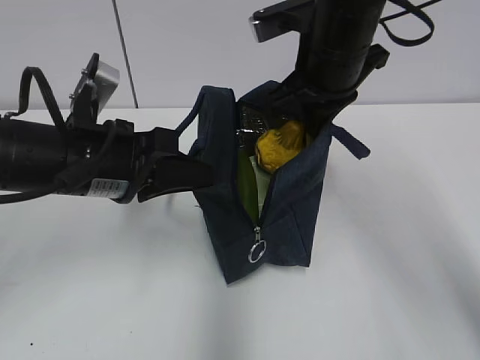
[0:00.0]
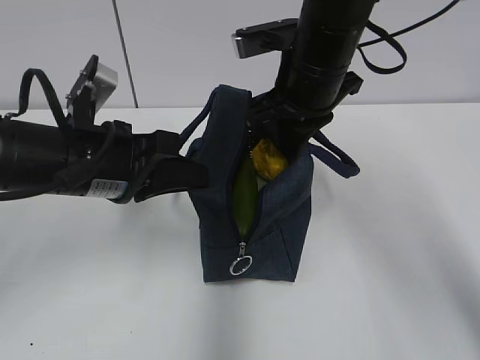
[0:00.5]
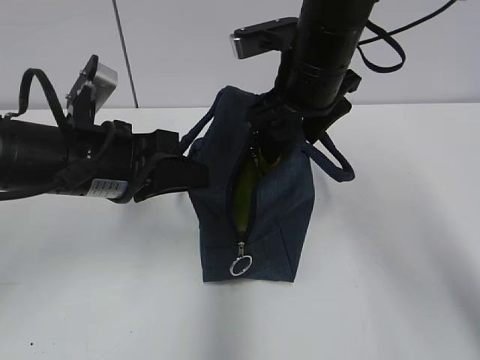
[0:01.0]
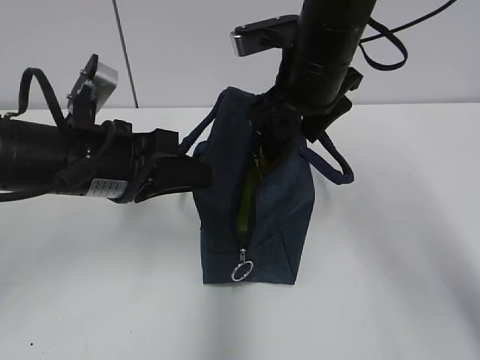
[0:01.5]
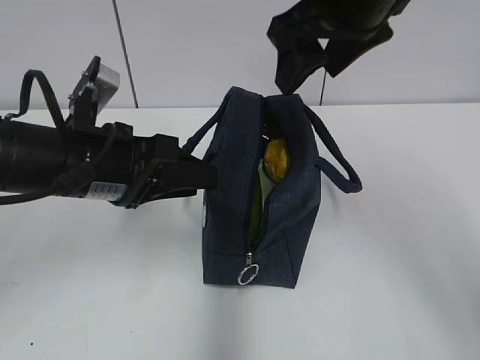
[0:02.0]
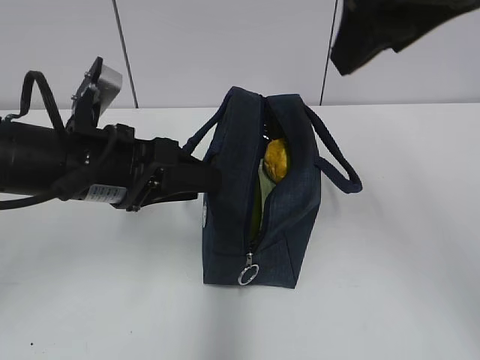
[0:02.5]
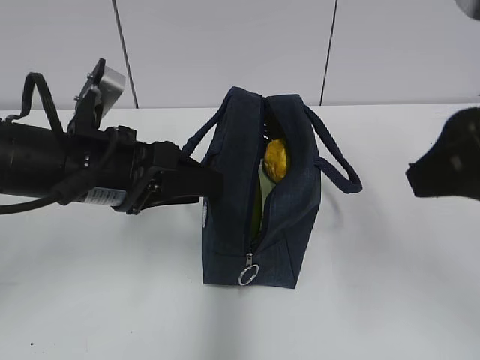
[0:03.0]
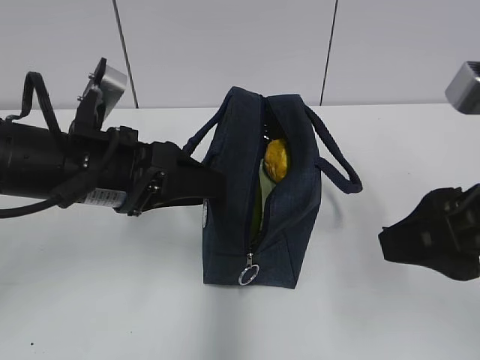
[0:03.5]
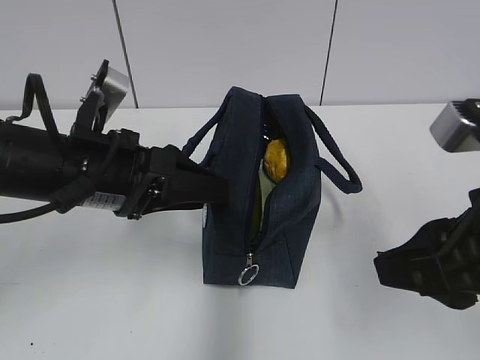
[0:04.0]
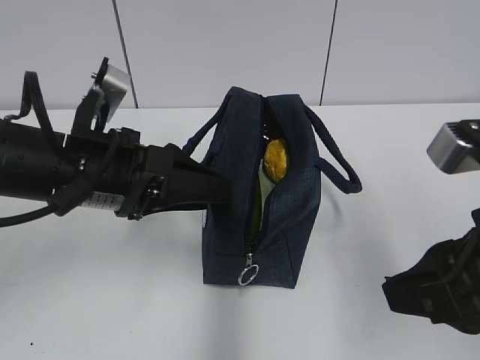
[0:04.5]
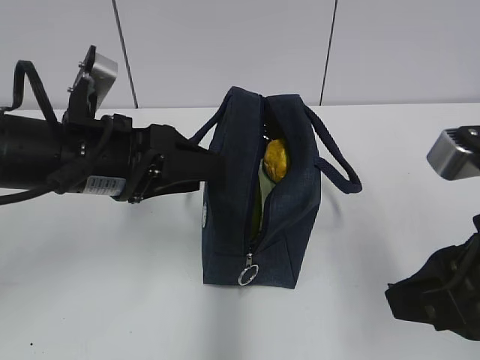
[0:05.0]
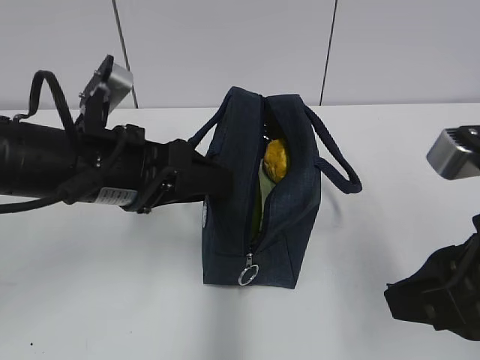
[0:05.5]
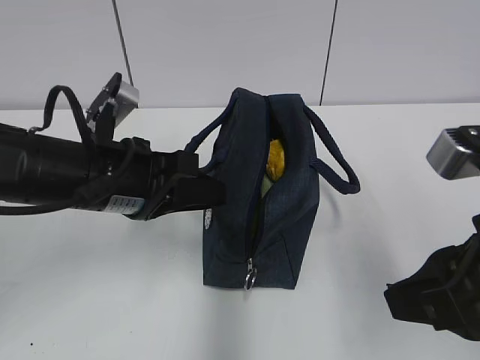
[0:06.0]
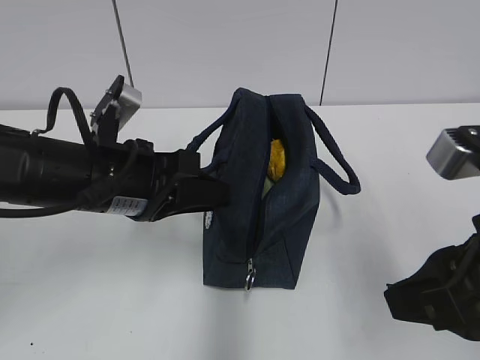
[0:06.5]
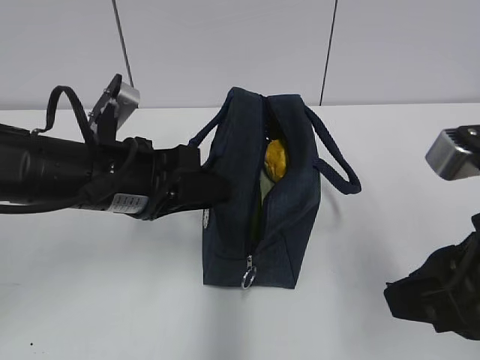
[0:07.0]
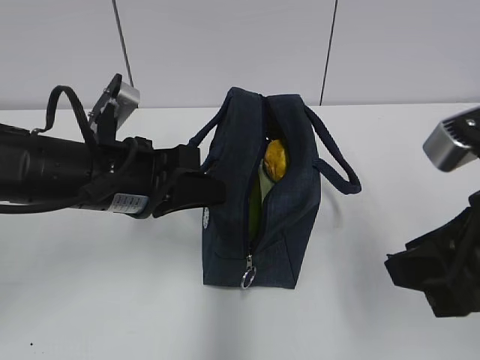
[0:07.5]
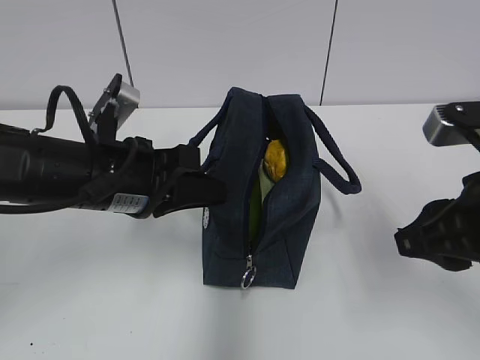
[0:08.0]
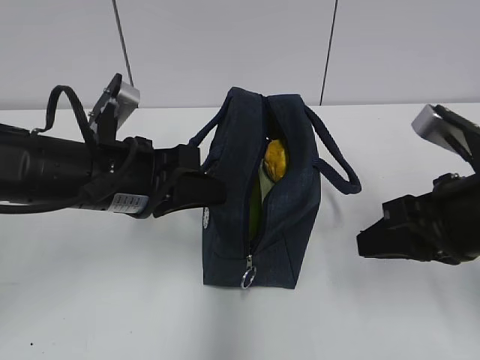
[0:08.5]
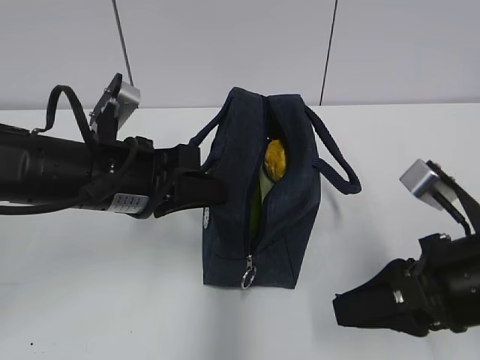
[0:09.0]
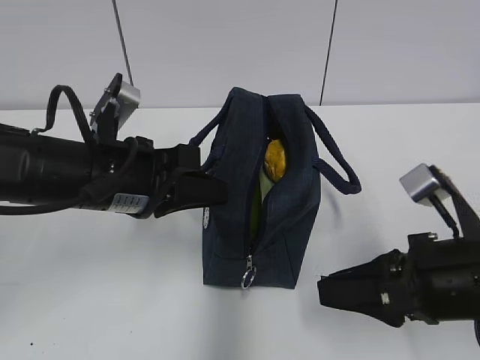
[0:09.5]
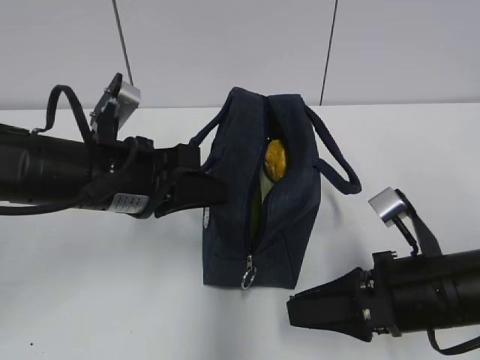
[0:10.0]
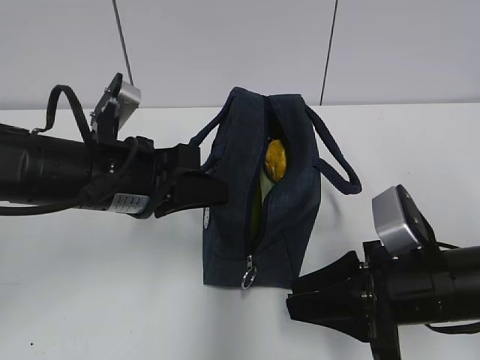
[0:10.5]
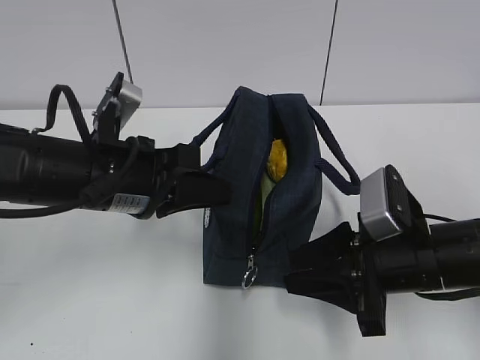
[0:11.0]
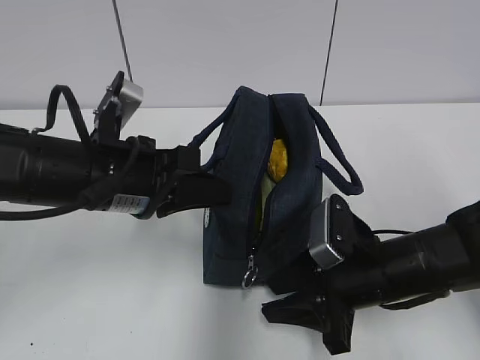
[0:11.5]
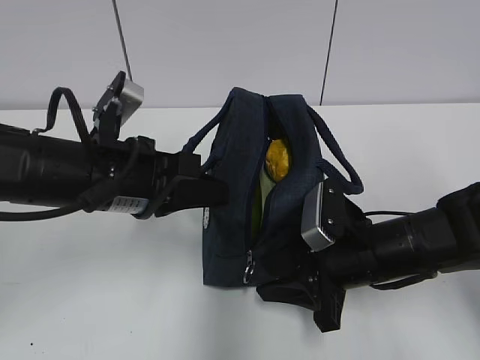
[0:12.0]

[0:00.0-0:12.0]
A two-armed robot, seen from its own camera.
Step, 0:00.0 to 0:01.5: Move the lunch bag to the right.
Step, 0:02.0 to 0:06.0: Grab the lunch bag with your left hand.
0:00.0 to 0:02.0: The right gripper heads upward, covering roughly 10 cm, and opens; the left gripper opens its fingers.
0:02.0 to 0:04.0: The right gripper goes some 20 cm backward and downward, and closes up.
0:04.0 to 0:06.0: The left gripper closes its fingers.
0:06.0 to 0:08.0: The right gripper travels forward by about 5 cm.
0:08.0 to 0:10.0: The right gripper goes about 10 cm downward.
0:10.0 to 0:12.0: The right gripper moves forward, approximately 5 cm.

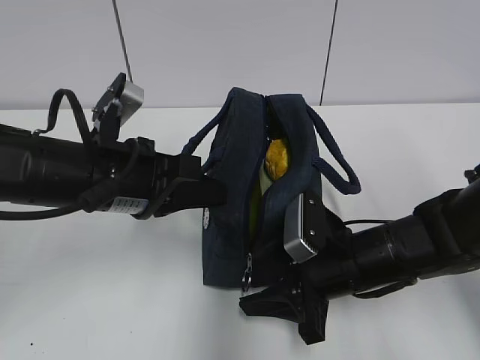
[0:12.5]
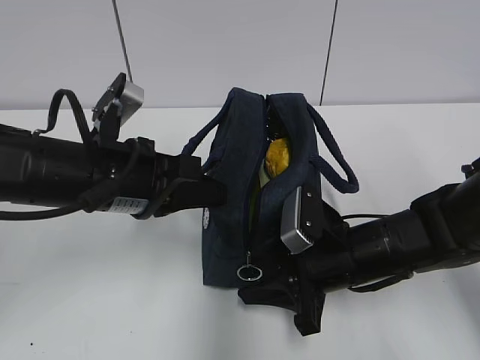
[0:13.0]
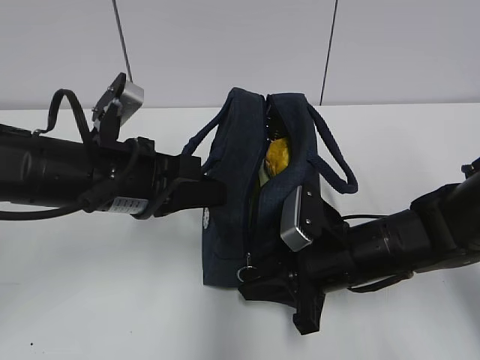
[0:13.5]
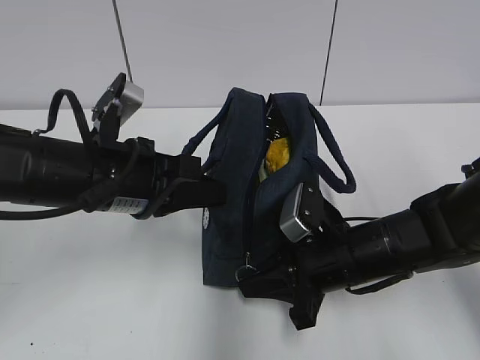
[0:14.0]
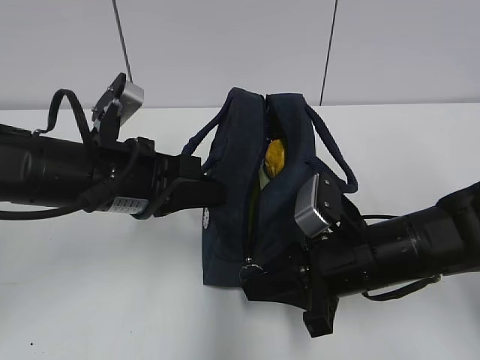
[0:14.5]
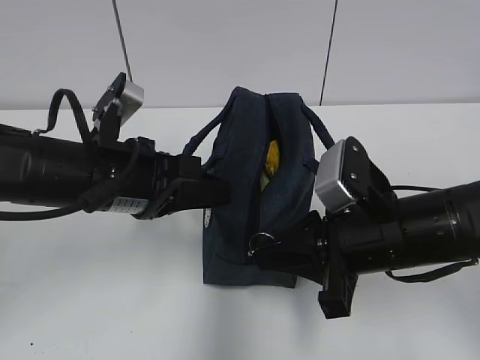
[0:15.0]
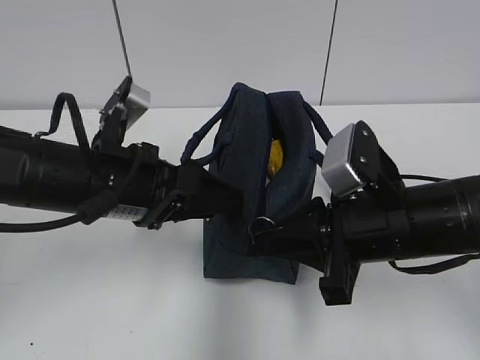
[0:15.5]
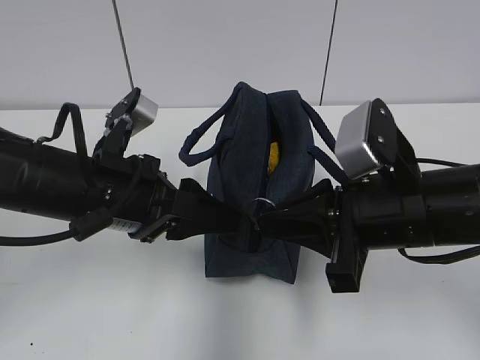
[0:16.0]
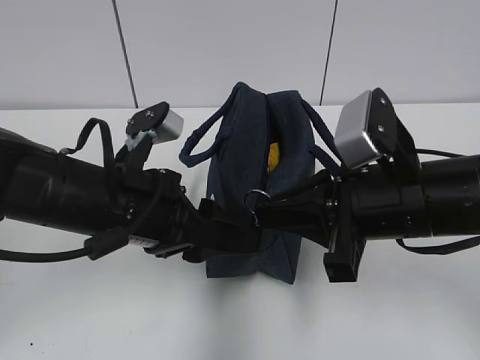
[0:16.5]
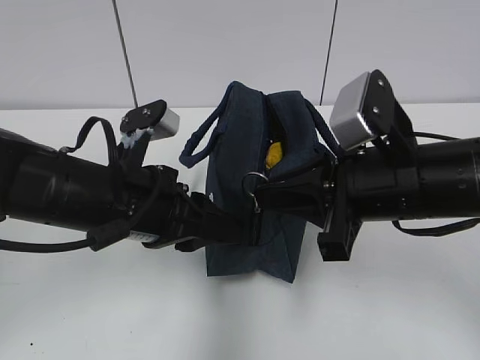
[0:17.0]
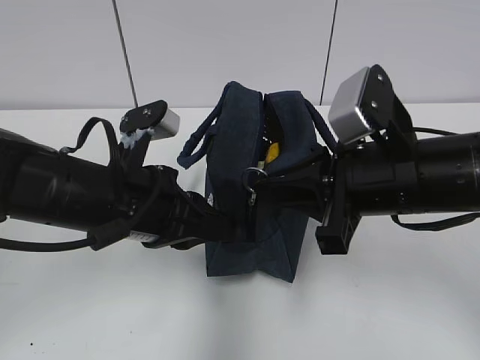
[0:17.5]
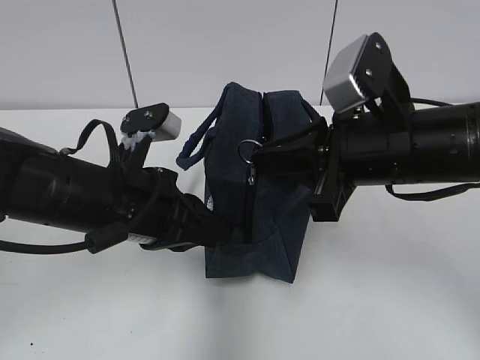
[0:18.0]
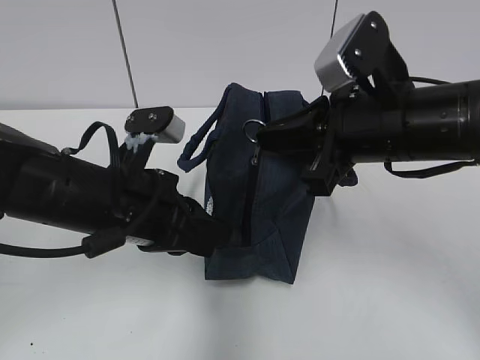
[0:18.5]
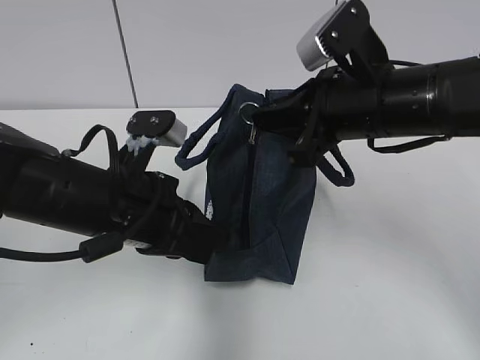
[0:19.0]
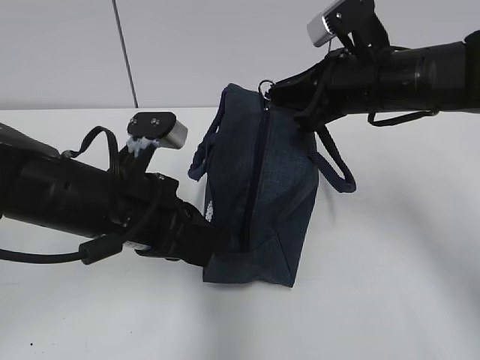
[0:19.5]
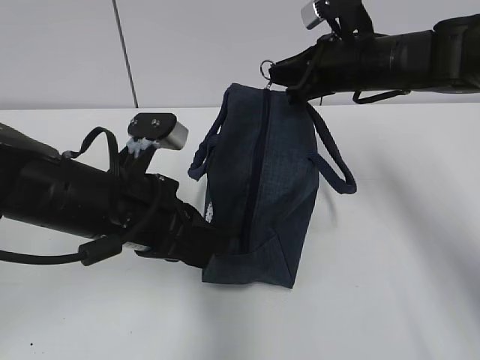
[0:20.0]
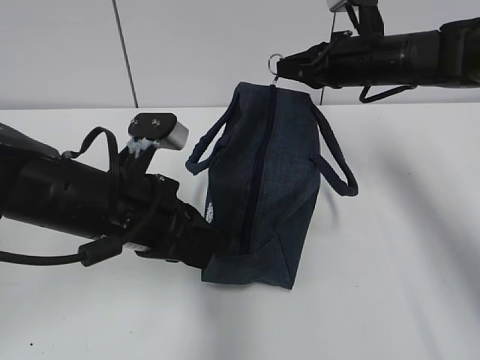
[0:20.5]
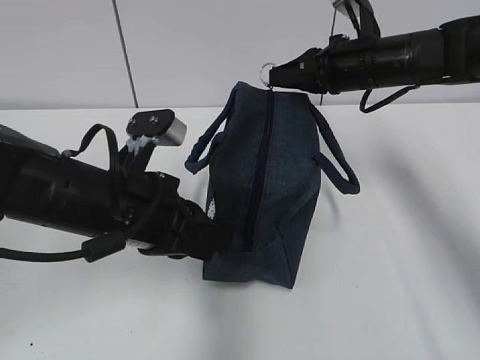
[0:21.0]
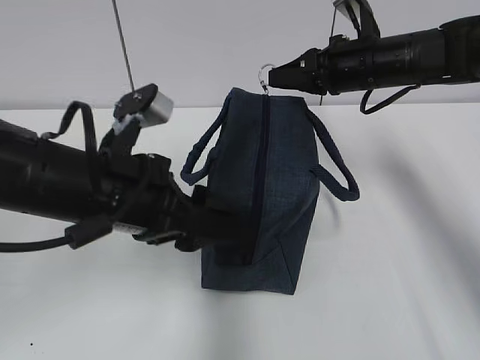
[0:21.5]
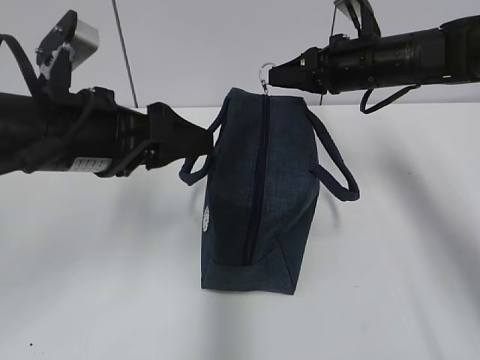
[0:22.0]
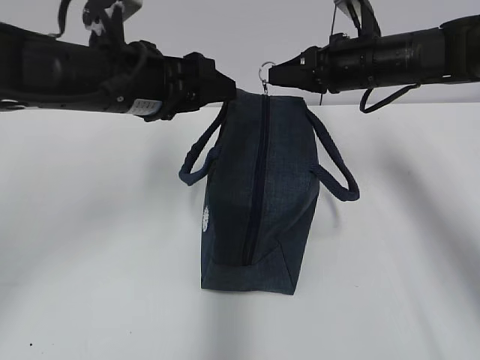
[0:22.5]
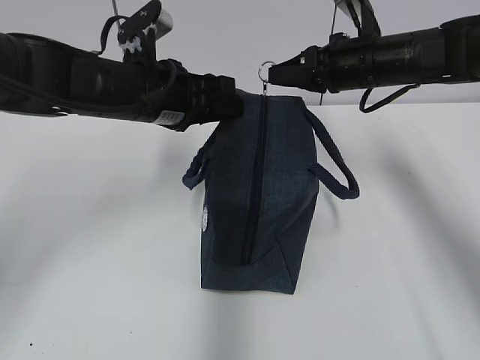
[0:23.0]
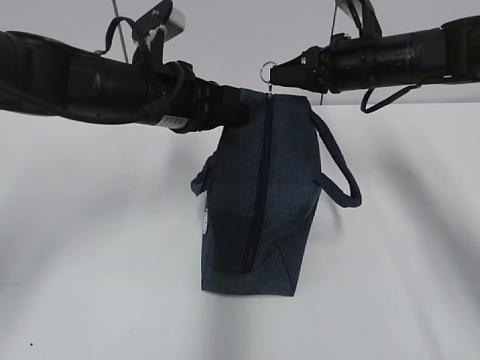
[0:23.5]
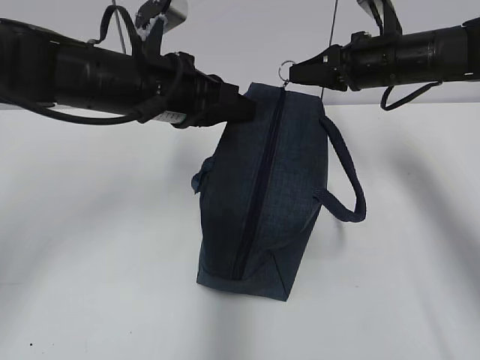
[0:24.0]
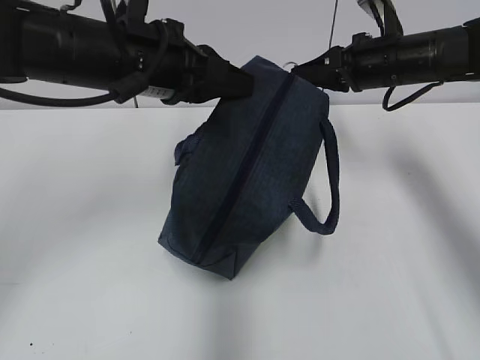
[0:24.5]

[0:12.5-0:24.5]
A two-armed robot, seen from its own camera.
0:12.5 to 0:14.5: The right gripper closes up.
0:14.5 to 0:16.5: The left gripper opens; the right gripper shifts about 10 cm upward.
0:16.5 to 0:18.5: The left gripper closes its fingers. Meanwhile the right gripper changes place by roughly 5 cm.
0:18.5 to 0:20.5: The right gripper moves forward, some 15 cm.
0:20.5 to 0:22.5: The left gripper moves forward and upward, approximately 10 cm, and opens up.
0:22.5 to 0:24.5: The left gripper closes its fingers.

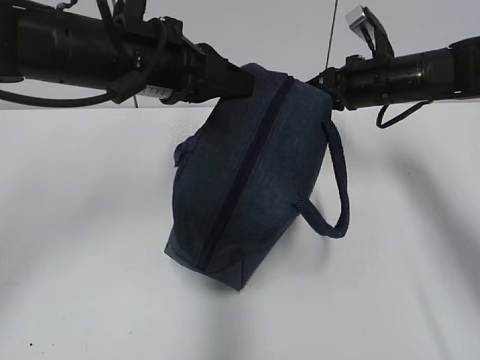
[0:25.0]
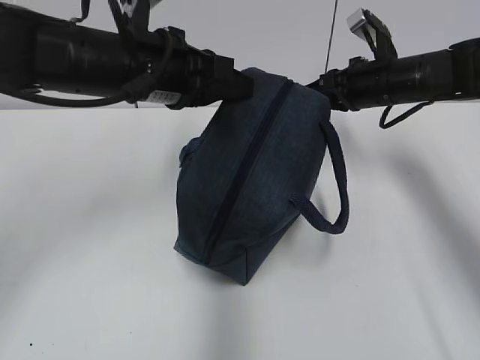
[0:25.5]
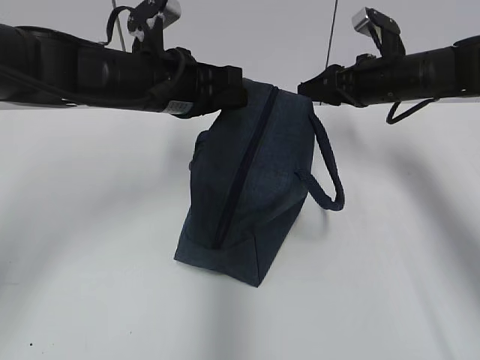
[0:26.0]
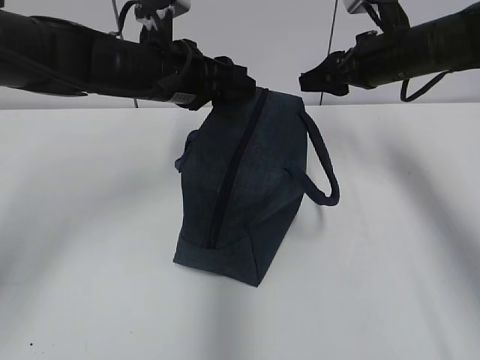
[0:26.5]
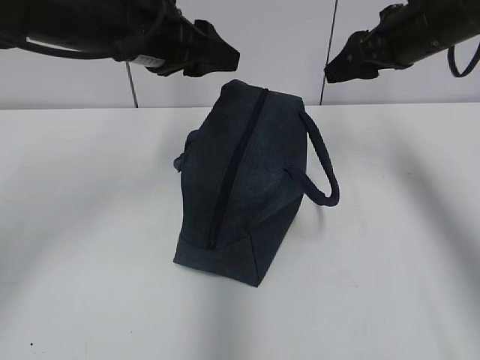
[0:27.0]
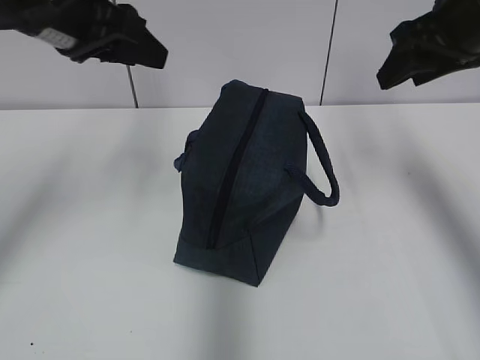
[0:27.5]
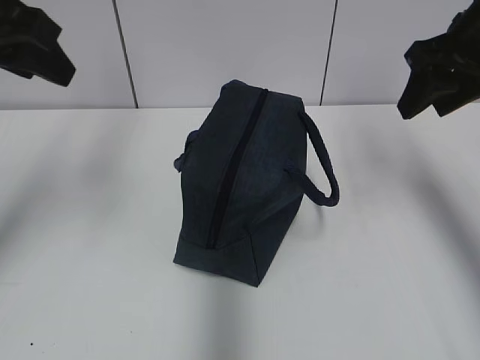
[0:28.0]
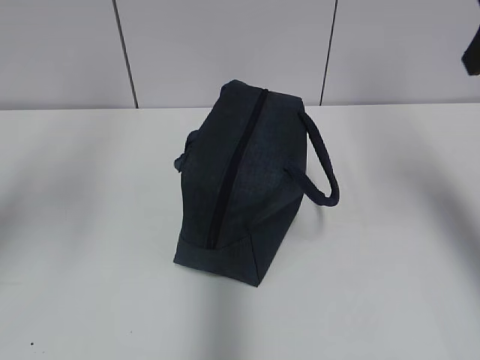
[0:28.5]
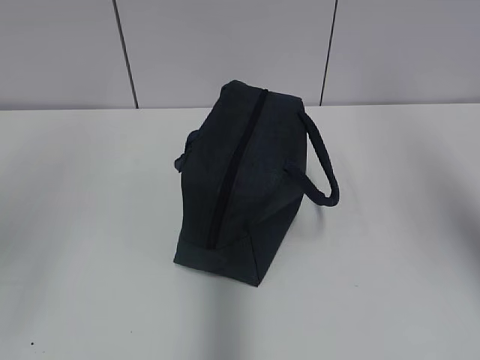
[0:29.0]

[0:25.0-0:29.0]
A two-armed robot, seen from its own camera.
Step, 0:25.5 to 0:26.5: Grab the lunch bag with your left hand.
0:25.0 to 0:27.0: The right gripper is displaced upward by approximately 10 cm, and opens up; the left gripper opens its fingers.
0:27.0 to 0:29.0: The right gripper moves backward and upward, approximately 30 cm, while the left gripper travels backward, to the left and upward by about 30 cm.
